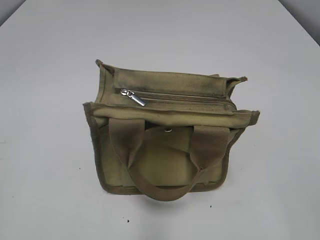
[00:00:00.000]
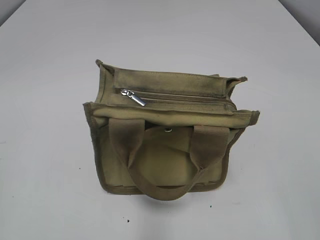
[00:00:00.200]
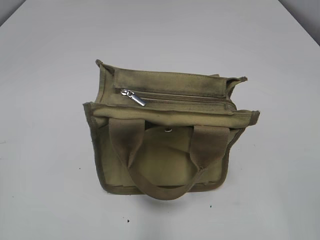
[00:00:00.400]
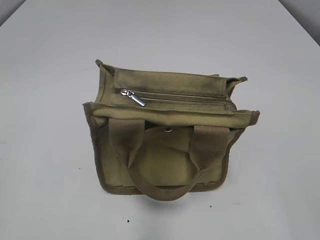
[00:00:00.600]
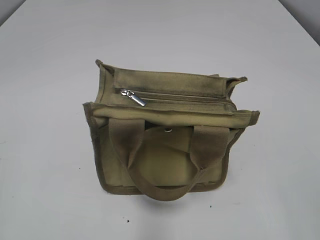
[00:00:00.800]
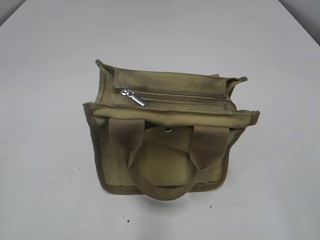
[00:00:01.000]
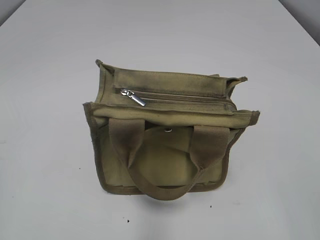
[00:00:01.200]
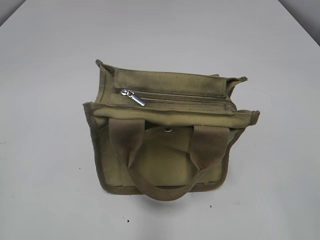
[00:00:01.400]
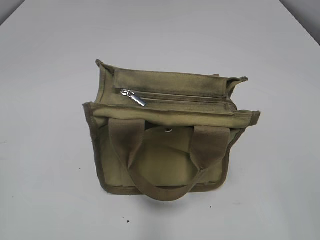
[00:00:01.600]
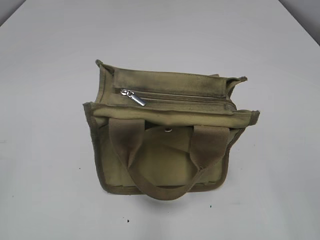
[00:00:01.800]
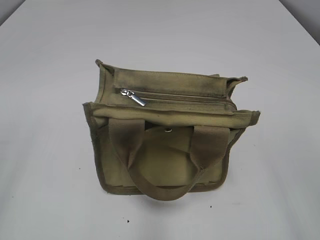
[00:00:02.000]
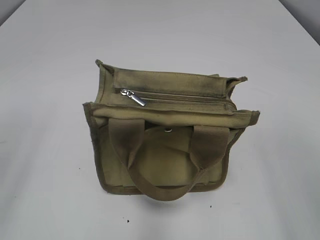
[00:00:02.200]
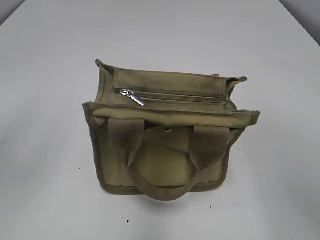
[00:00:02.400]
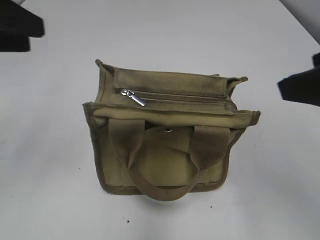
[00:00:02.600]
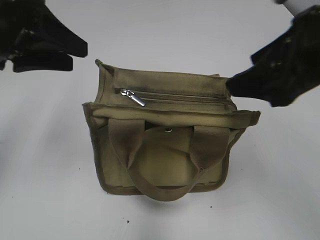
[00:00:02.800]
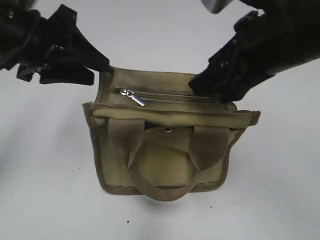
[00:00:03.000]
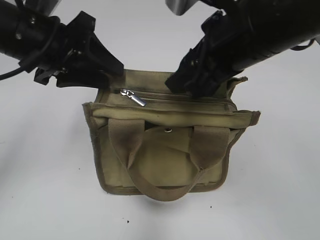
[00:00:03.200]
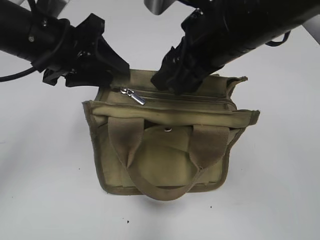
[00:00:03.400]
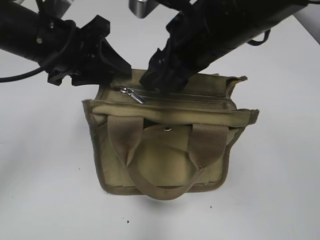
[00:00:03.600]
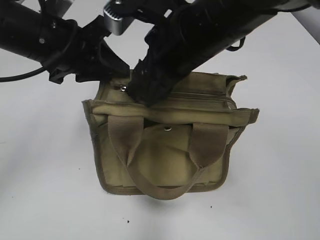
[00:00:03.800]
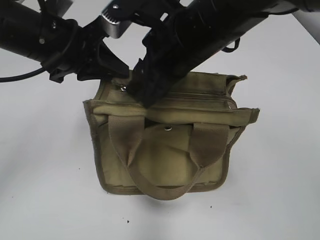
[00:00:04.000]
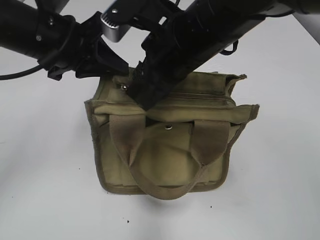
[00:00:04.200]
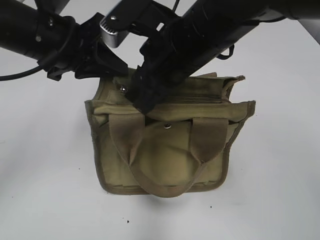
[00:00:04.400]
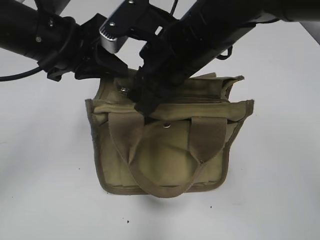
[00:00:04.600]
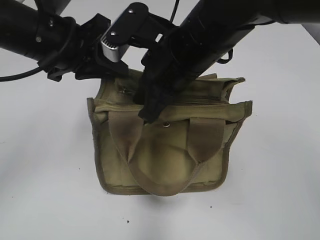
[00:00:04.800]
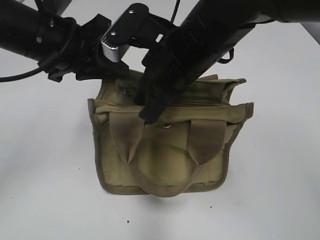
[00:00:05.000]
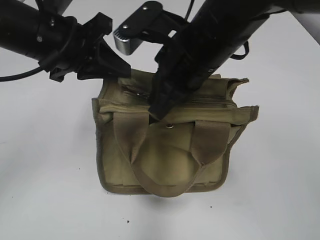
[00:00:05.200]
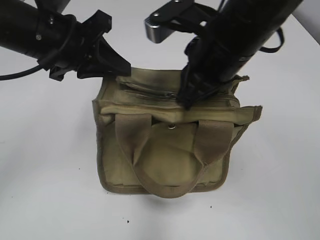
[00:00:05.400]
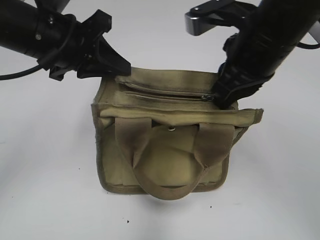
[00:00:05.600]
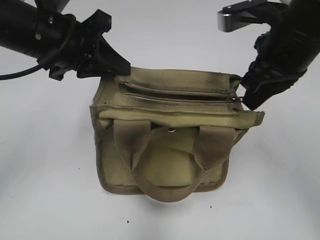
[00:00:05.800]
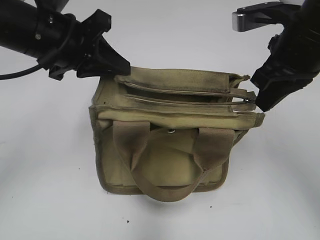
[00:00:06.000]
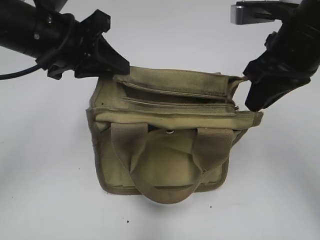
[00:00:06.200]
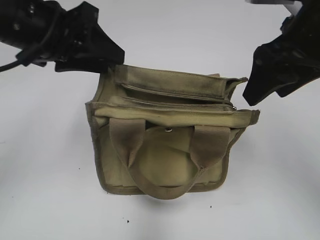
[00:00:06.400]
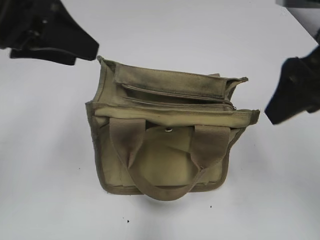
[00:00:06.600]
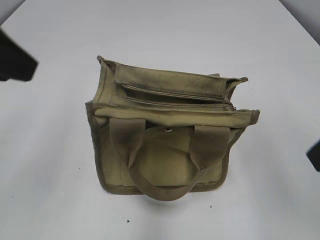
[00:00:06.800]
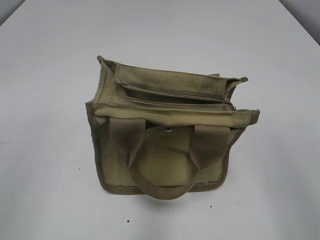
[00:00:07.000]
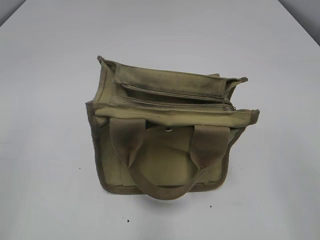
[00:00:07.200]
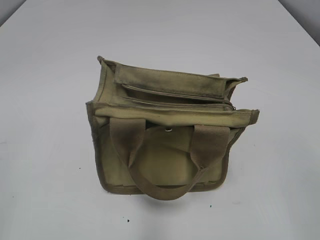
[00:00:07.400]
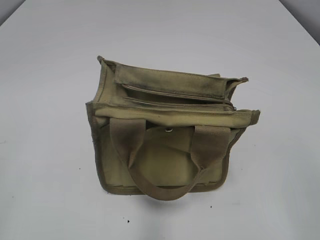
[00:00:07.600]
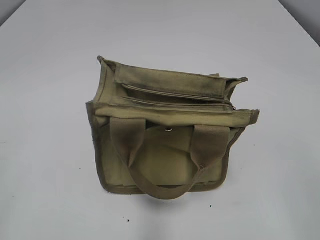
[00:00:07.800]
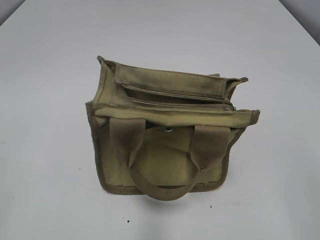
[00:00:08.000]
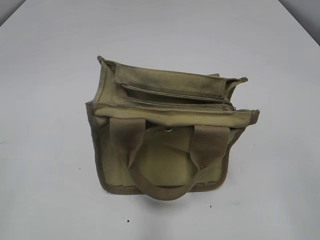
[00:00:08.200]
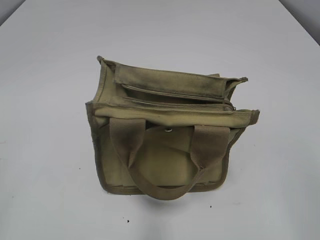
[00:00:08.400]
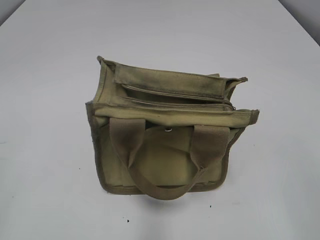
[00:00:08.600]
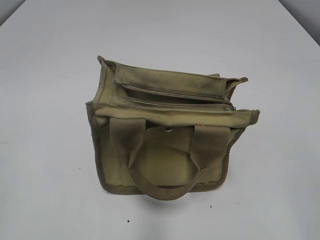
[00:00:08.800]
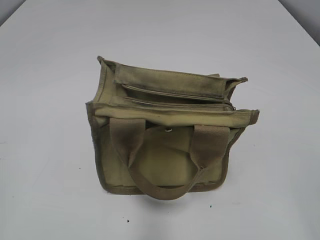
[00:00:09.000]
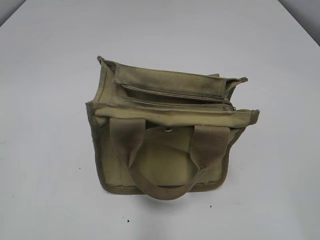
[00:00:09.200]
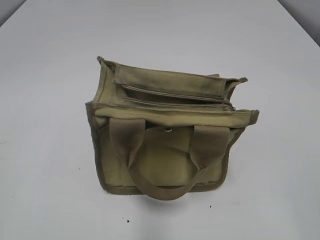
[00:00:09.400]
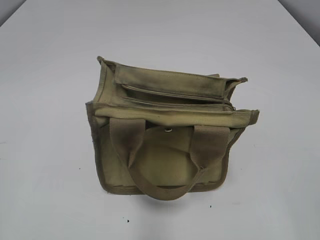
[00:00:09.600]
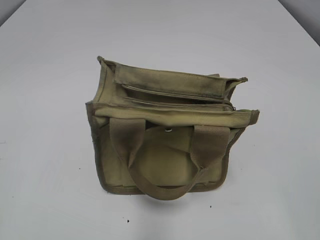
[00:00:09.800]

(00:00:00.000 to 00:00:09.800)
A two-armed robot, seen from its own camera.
Step, 00:00:00.000 - 00:00:06.000: Pull open the zipper with your right hand.
00:00:01.400 - 00:00:02.800: The left gripper is displaced forward and to the right by approximately 30 cm. Meanwhile the right gripper shifts about 20 cm forward.
00:00:02.800 - 00:00:04.200: The right gripper goes about 15 cm to the left and forward, and closes up, while the left gripper moves to the right, roughly 5 cm, and closes its fingers.
00:00:04.200 - 00:00:05.600: The right gripper heads to the right, covering about 10 cm, and closes up.
00:00:05.600 - 00:00:07.000: The right gripper goes about 20 cm backward and to the right, and opens up, while the left gripper travels backward, to the left and upward by roughly 20 cm, and opens.

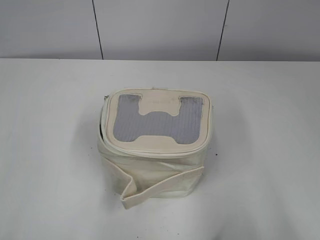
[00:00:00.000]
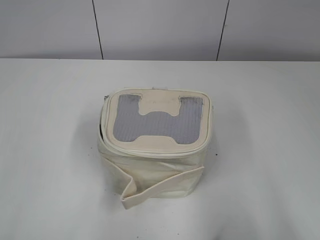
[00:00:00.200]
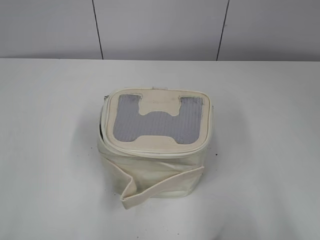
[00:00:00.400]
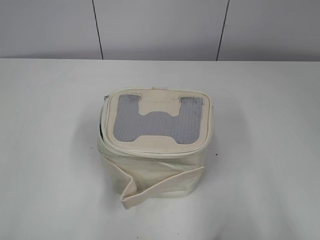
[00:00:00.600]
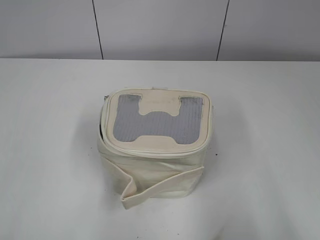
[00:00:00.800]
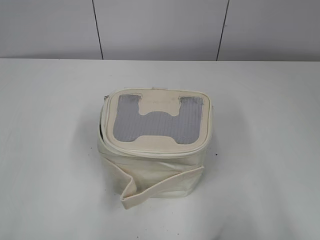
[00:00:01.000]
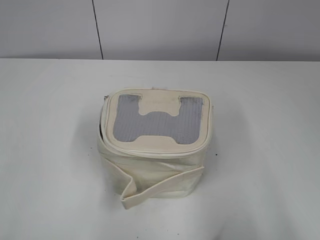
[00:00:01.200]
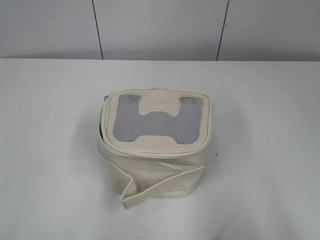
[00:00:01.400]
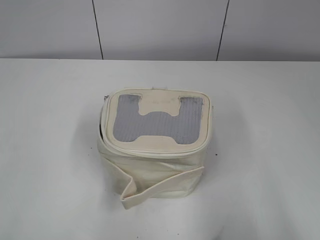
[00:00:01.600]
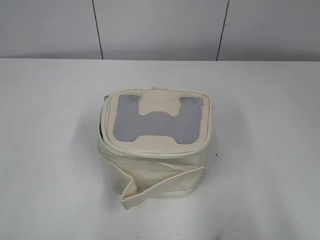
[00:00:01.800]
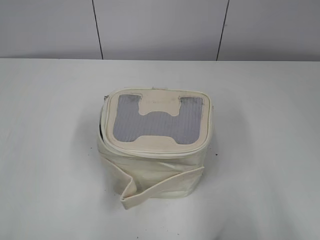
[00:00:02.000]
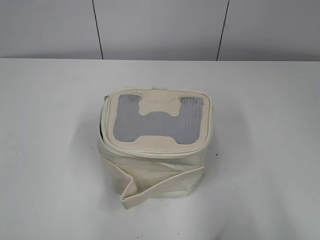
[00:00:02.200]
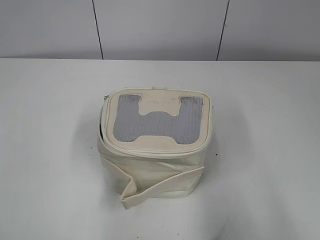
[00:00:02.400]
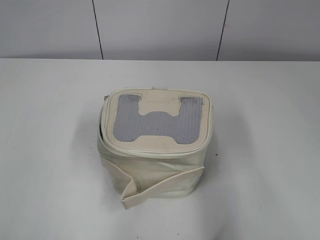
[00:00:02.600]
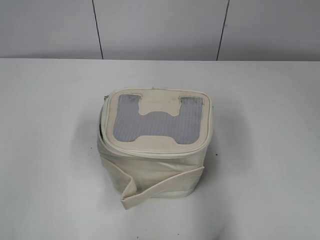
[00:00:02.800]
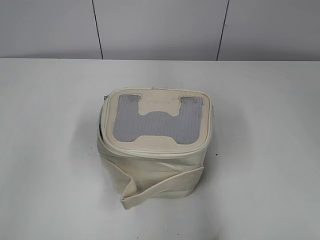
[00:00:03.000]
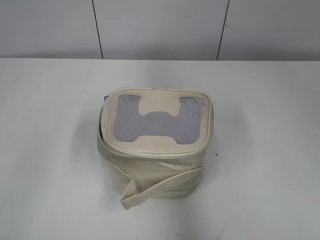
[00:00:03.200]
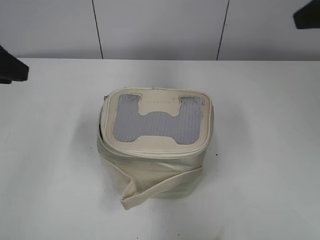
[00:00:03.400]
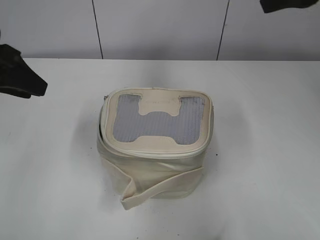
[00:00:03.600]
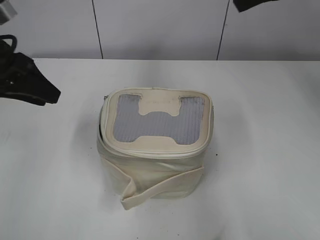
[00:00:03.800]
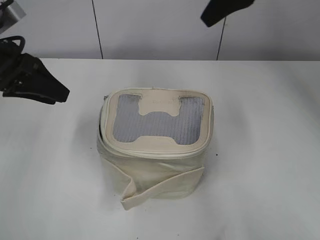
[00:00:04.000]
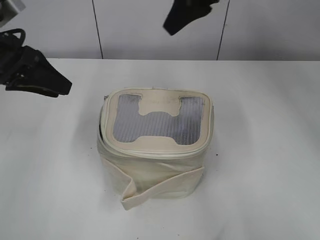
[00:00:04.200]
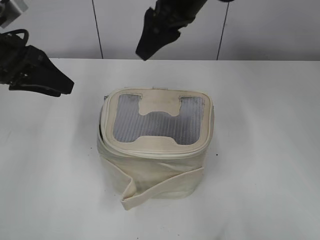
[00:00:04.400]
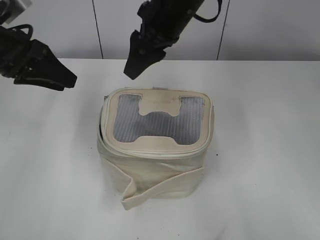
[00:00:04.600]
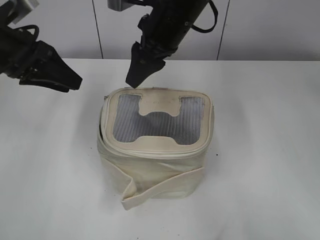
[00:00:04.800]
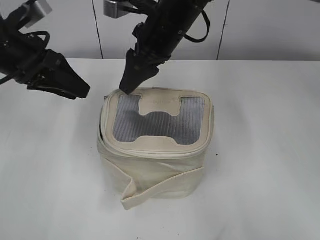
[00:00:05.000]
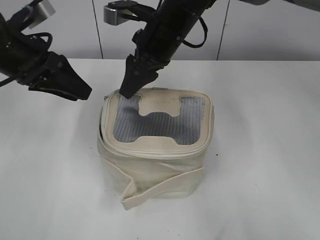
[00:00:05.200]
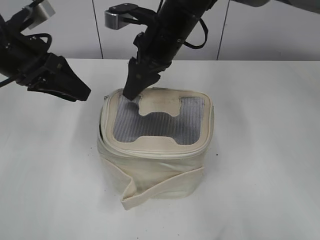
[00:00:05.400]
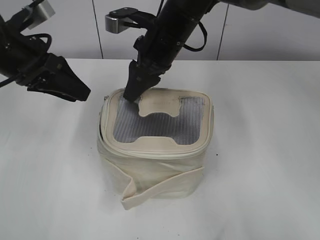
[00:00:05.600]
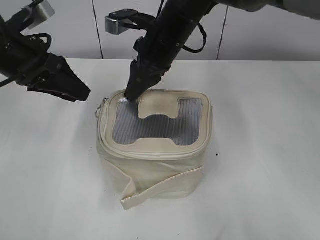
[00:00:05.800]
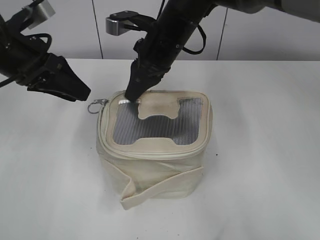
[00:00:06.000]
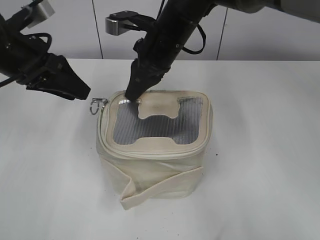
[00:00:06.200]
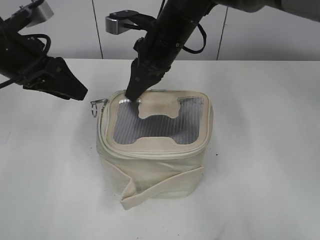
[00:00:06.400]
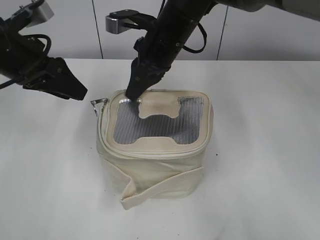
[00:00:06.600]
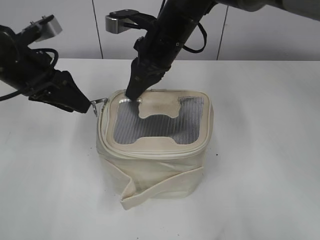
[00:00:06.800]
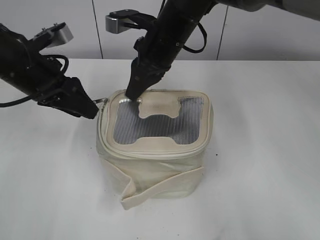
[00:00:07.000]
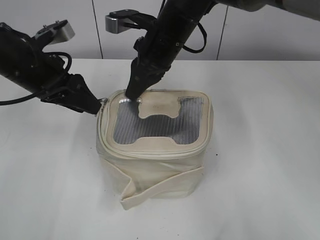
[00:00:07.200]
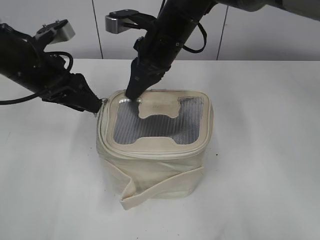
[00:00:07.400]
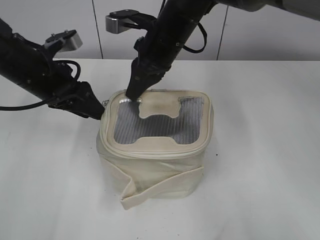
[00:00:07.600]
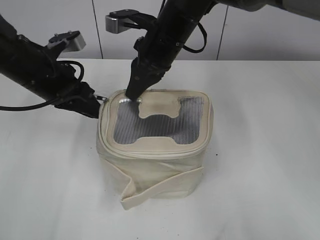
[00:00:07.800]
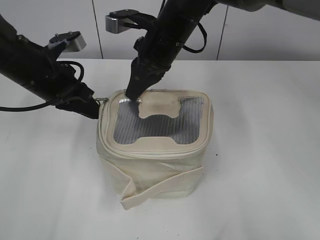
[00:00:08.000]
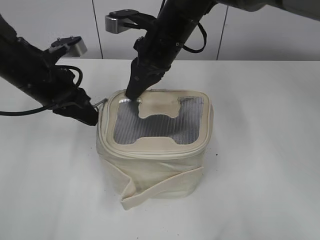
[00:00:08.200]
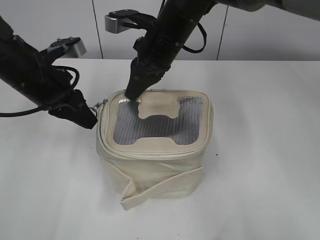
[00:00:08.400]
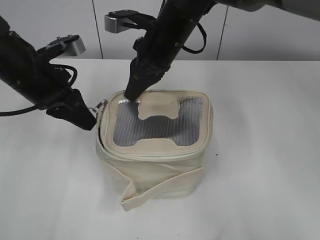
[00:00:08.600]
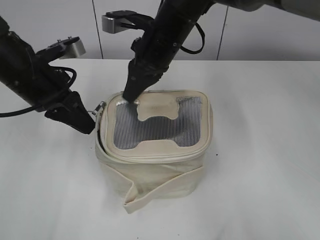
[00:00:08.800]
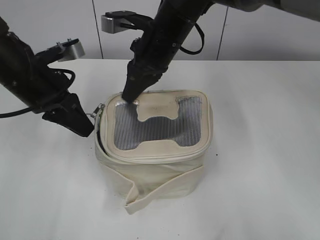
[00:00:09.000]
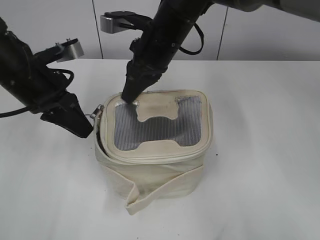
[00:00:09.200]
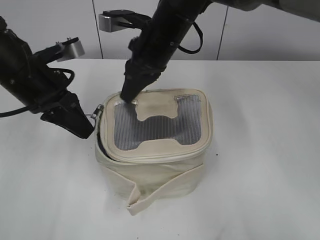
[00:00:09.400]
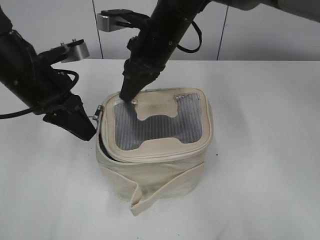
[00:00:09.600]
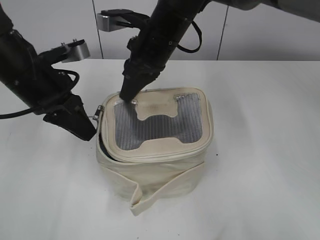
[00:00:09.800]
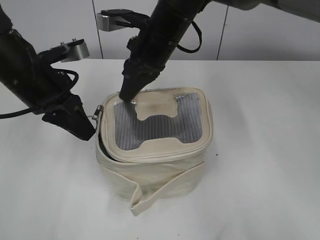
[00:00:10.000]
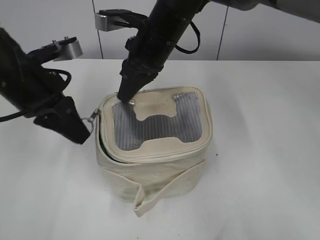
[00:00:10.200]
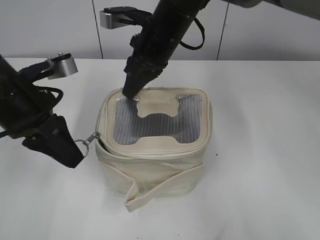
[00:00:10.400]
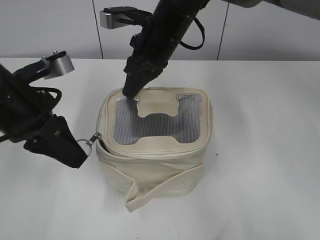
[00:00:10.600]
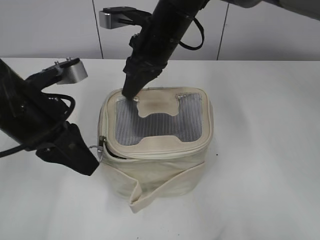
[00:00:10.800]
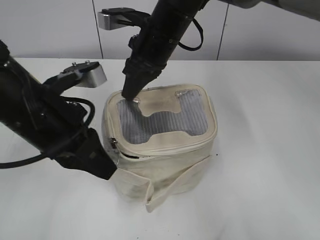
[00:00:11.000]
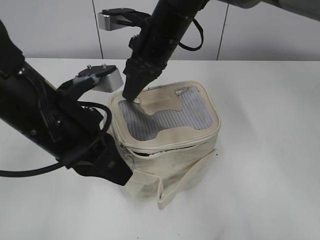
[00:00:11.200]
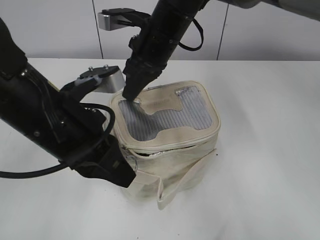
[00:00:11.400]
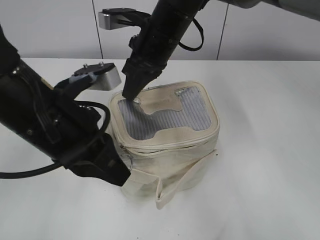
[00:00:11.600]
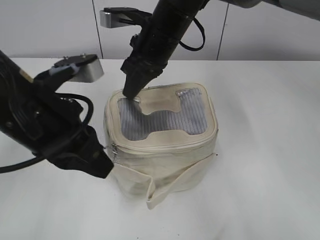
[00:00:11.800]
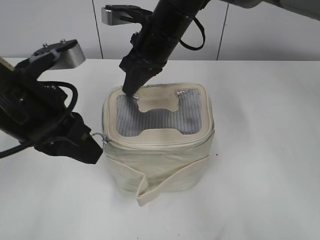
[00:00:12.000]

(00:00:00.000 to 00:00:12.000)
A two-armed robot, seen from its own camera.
00:00:01.600 - 00:00:03.000: The right gripper shifts roughly 15 cm forward and upward, while the left gripper is displaced forward by some 15 cm.
00:00:03.000 - 00:00:04.400: The left gripper goes approximately 15 cm forward and downward. Meanwhile the right gripper moves forward and to the left, approximately 35 cm.
00:00:04.400 - 00:00:06.000: The right gripper travels downward by roughly 10 cm, and closes up.
00:00:06.000 - 00:00:07.600: The left gripper shifts by approximately 5 cm.
00:00:07.600 - 00:00:09.000: The left gripper closes its fingers.
00:00:09.000 - 00:00:10.400: The left gripper shifts roughly 5 cm backward.
00:00:10.400 - 00:00:12.000: The left gripper ends up about 5 cm from where it was.
